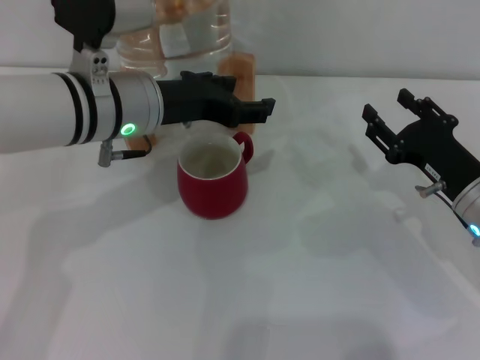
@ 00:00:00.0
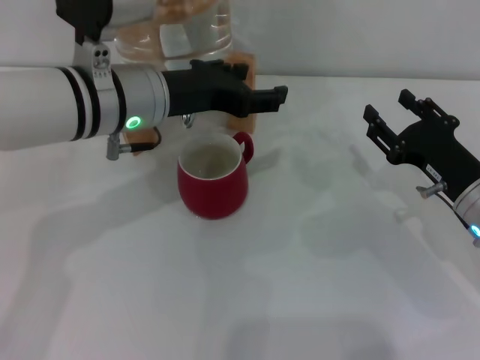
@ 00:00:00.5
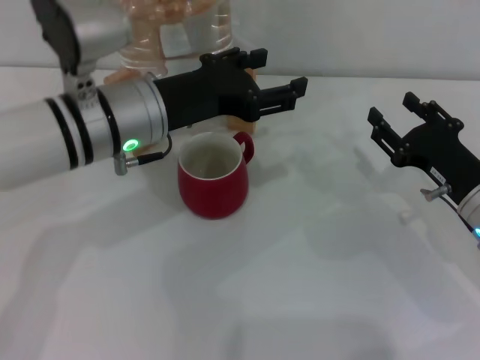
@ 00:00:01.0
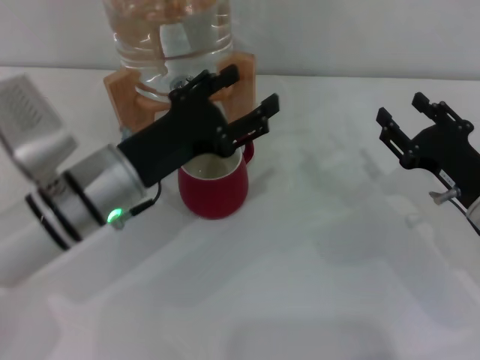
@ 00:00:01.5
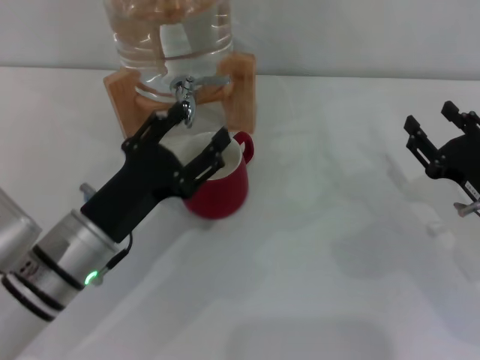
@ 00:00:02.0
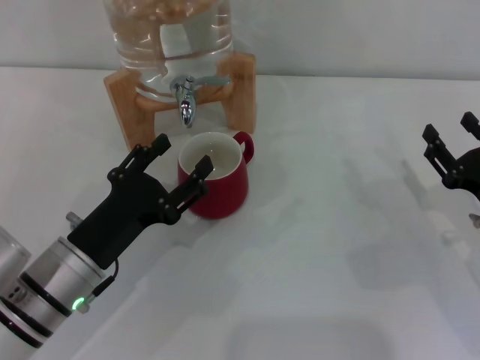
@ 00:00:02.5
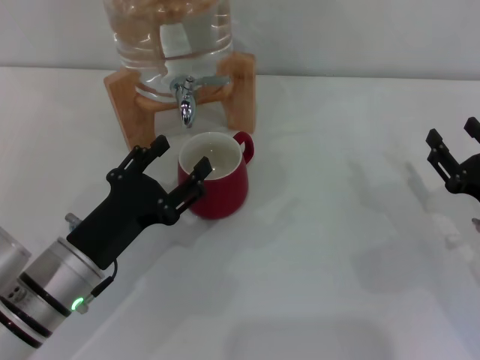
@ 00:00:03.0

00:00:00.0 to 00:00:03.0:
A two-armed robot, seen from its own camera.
Task of the whole recording: the right gripper pick up the red cup and place it horizontally under the faucet, the left gripper turn on the faucet to fill the cup, and then turn off the faucet.
00:00:00.0 to 00:00:01.5: The left gripper moves downward and backward, some 10 cm.
00:00:01.5 to 00:00:03.0: The right gripper changes place by roughly 5 cm, while the left gripper is displaced downward and backward by roughly 10 cm.
